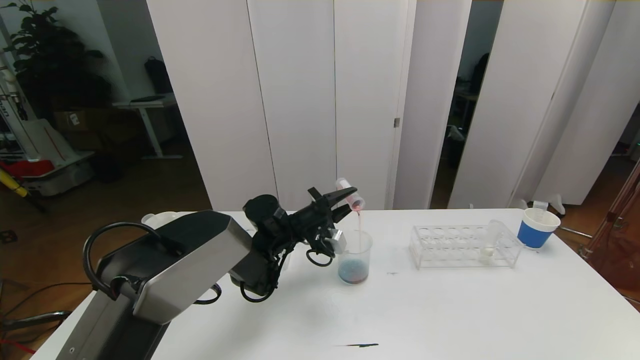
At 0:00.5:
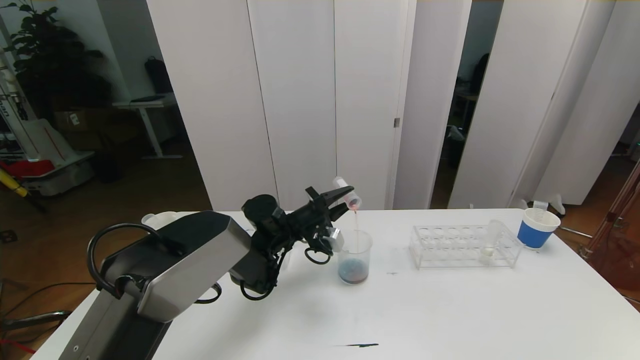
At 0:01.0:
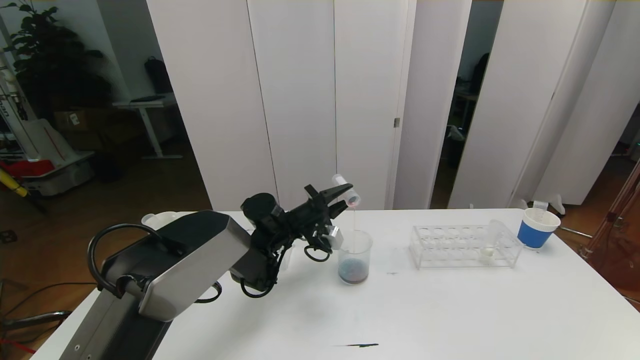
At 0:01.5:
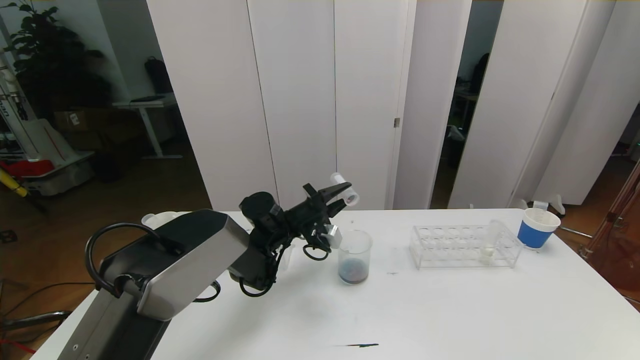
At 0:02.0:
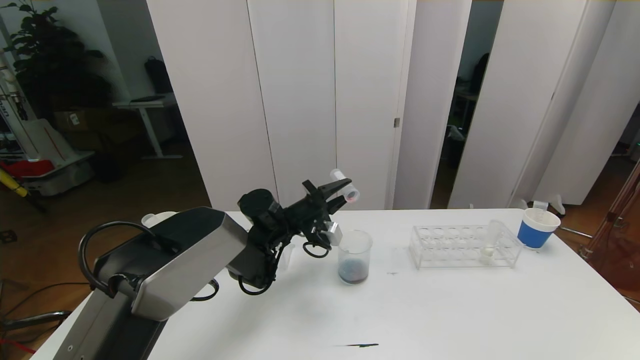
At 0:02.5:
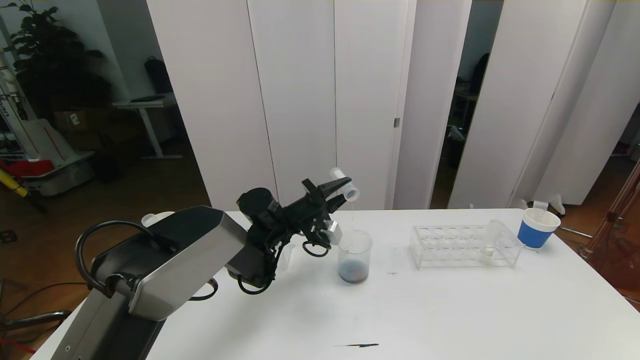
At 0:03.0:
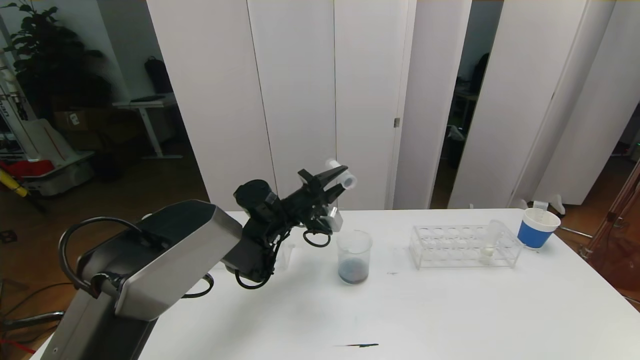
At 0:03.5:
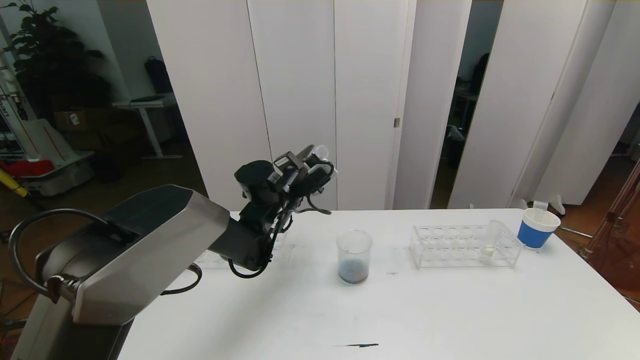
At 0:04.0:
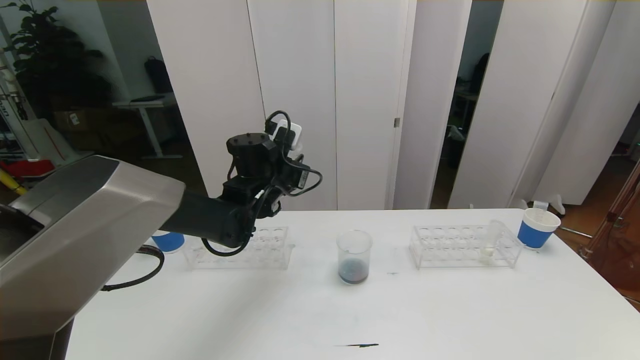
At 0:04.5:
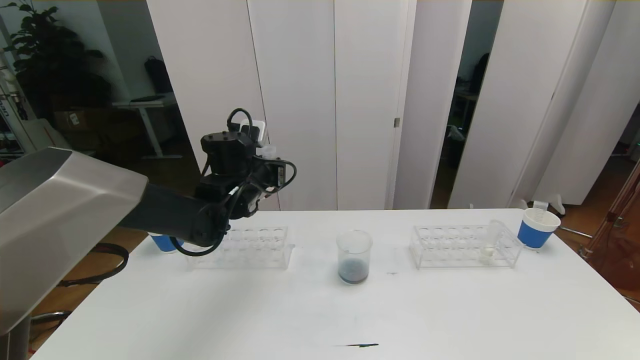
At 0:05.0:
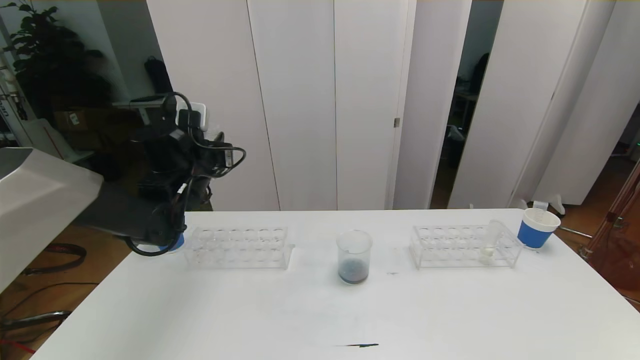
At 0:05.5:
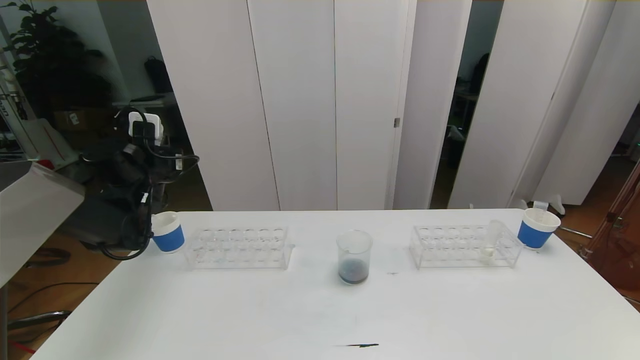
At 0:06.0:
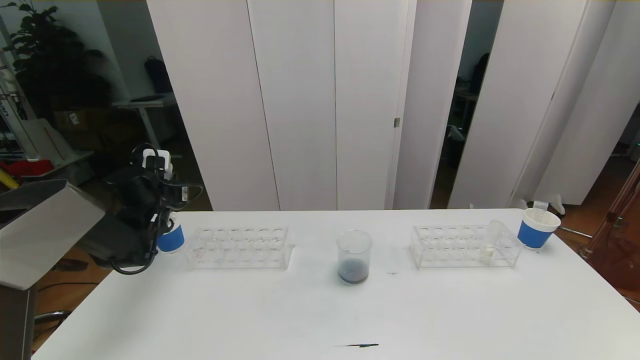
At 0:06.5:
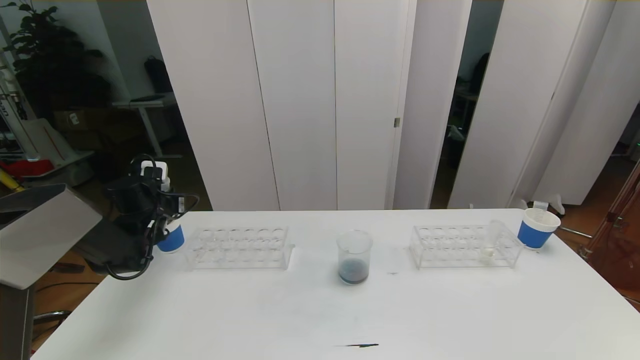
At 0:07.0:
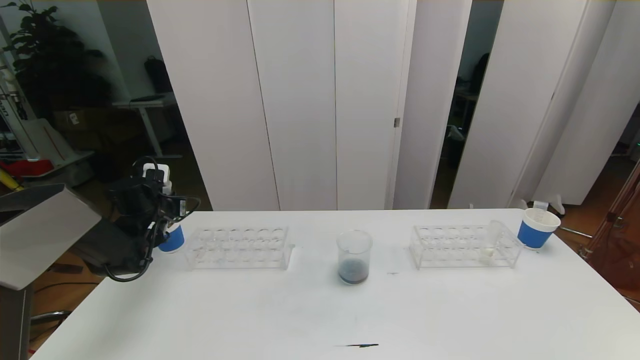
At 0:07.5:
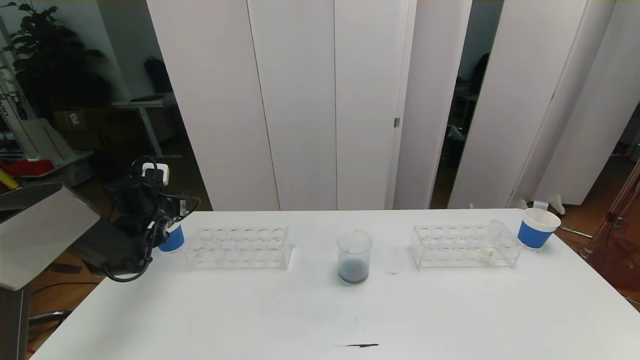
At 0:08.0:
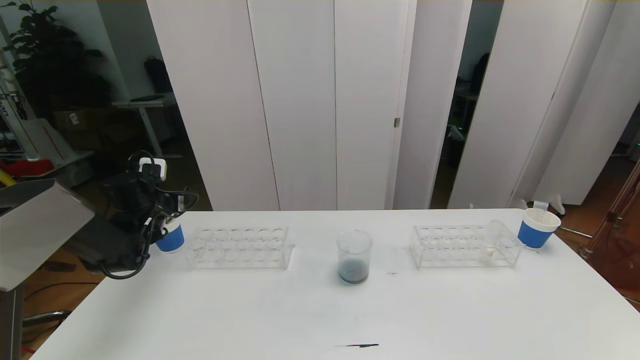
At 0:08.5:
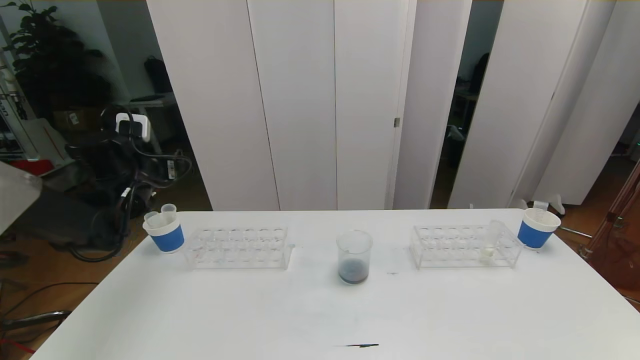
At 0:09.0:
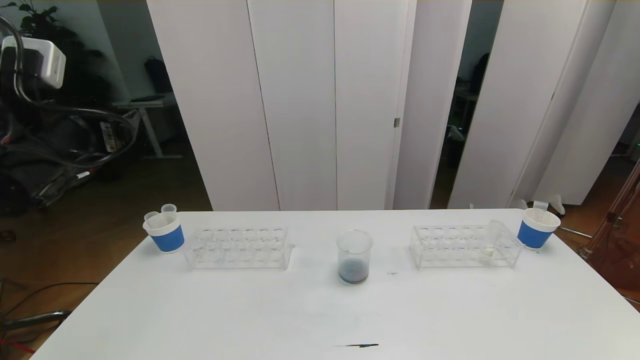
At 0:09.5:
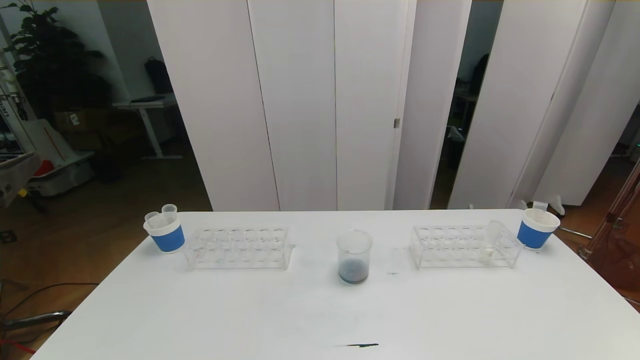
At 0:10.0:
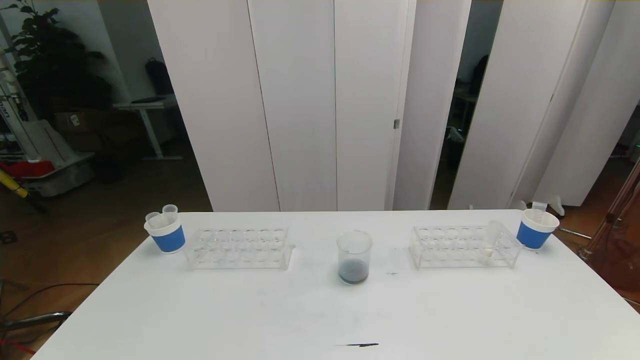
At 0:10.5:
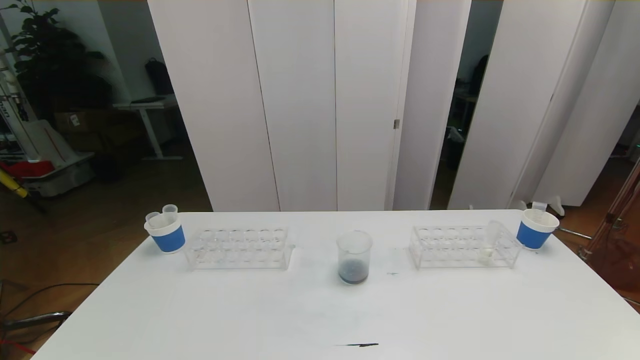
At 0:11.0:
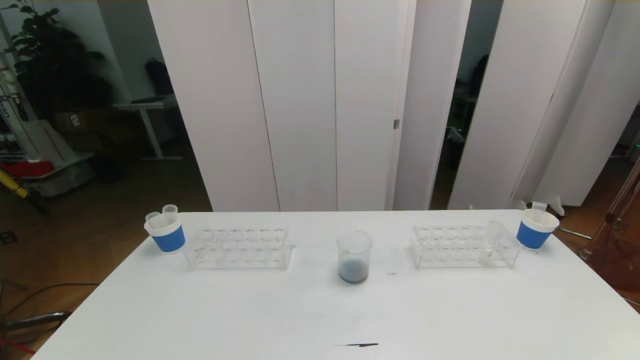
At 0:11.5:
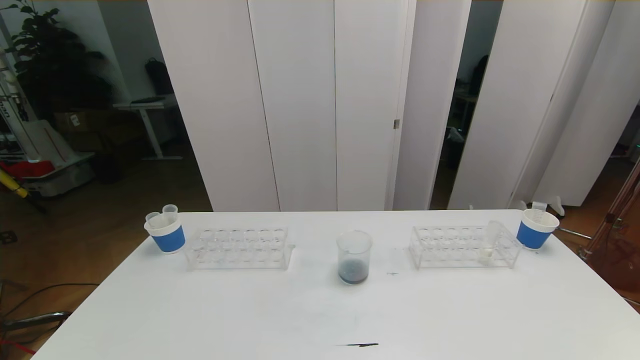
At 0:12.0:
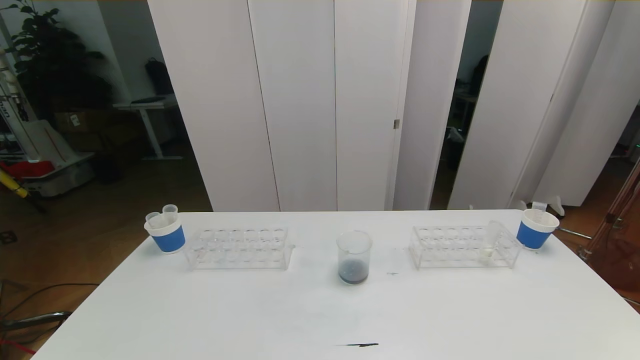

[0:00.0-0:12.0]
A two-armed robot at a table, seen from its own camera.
Task of the whole recording: pick up the test tube with red pigment the test tube with blue pigment and the test tube with white pigment by grippers and pour them into the beaker.
Step, 0:00.0 to 0:10.5: Pour the orange reagent into the graduated cylinder and place the test tube into the paper cup.
0:00.0 to 0:02.0: There are only small adjustments of the grippers.
0:02.0 to 0:04.0: The left gripper is displaced upward by approximately 10 cm.
0:04.0 to 0:06.0: The left gripper goes some 25 cm to the left.
0:06.0 to 0:08.0: The left gripper opens its fingers.
0:08.0 to 0:10.0: The left gripper heads backward, covering approximately 50 cm.

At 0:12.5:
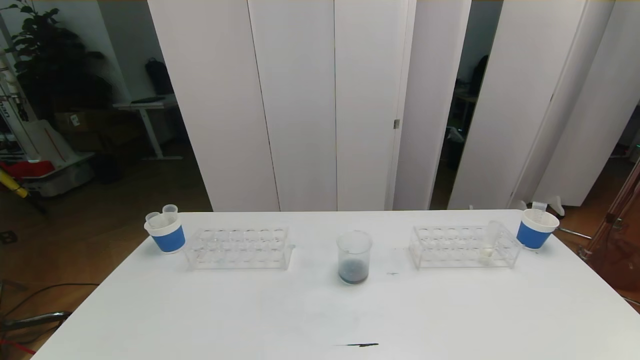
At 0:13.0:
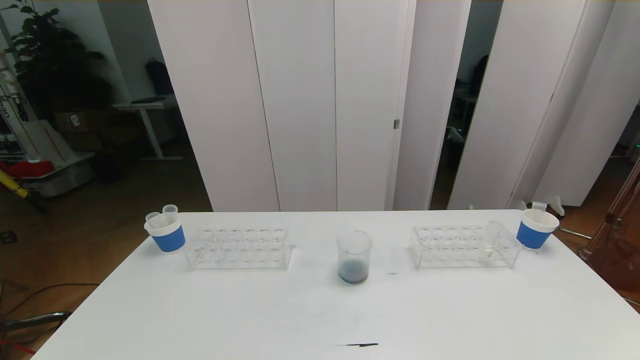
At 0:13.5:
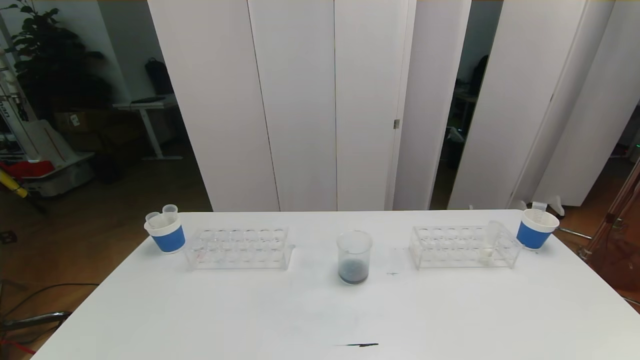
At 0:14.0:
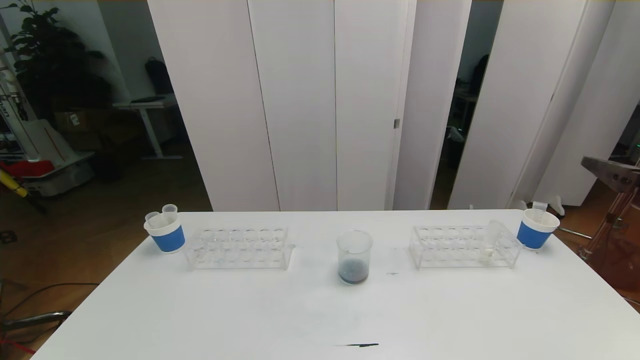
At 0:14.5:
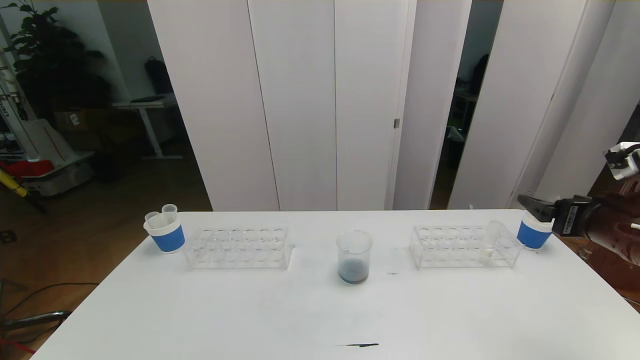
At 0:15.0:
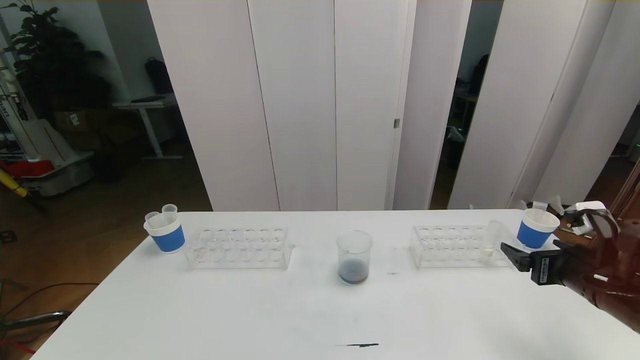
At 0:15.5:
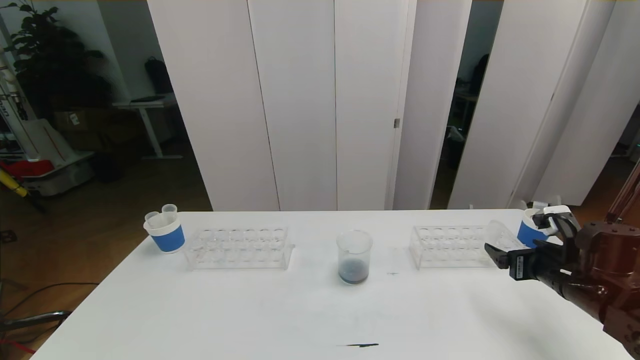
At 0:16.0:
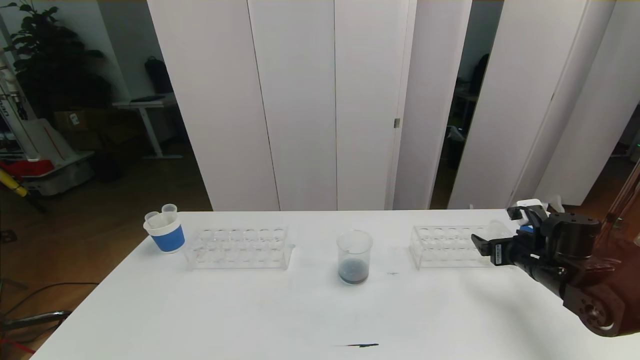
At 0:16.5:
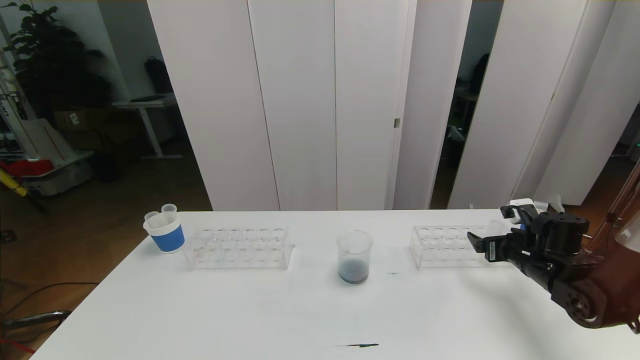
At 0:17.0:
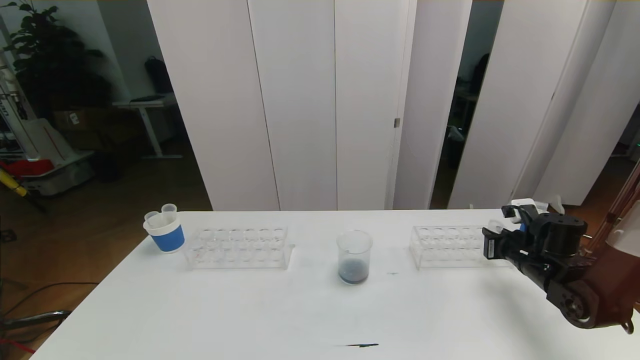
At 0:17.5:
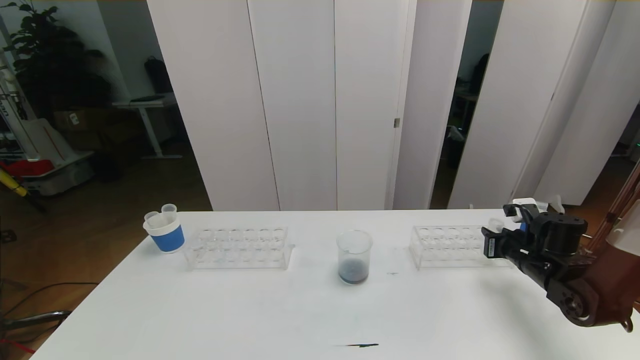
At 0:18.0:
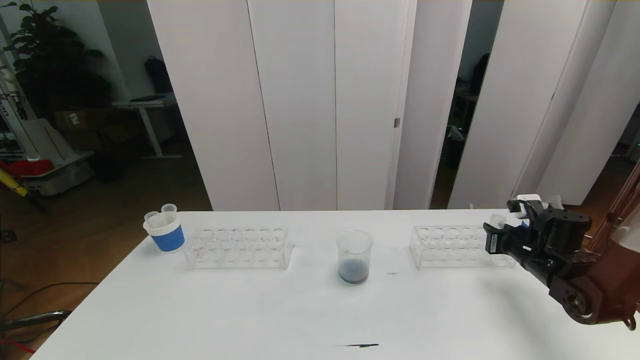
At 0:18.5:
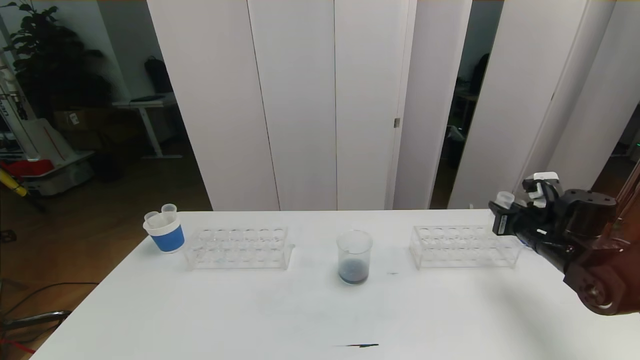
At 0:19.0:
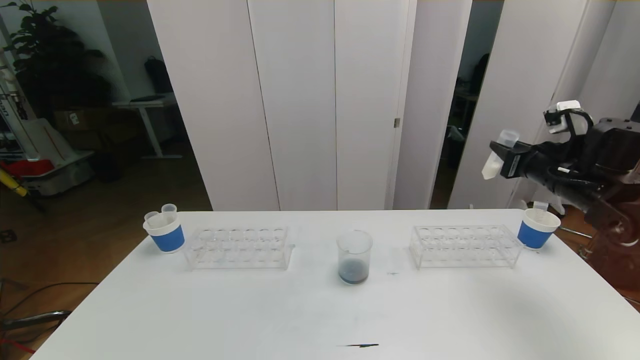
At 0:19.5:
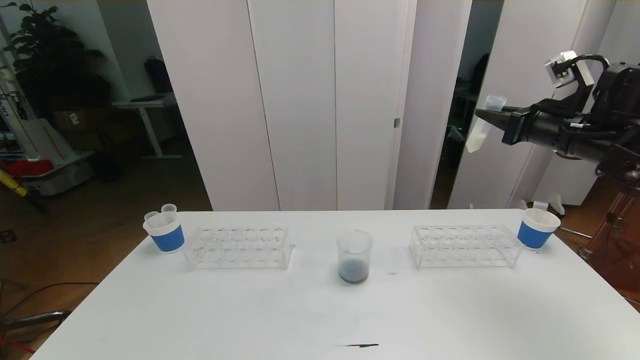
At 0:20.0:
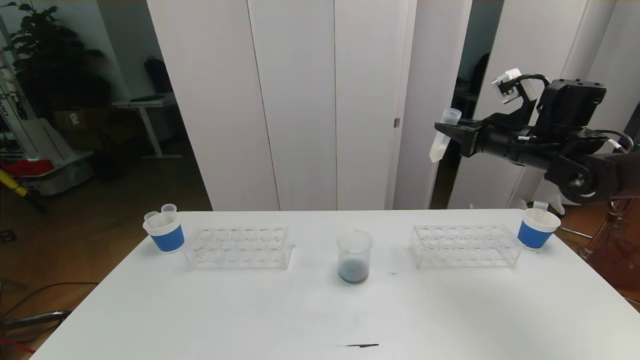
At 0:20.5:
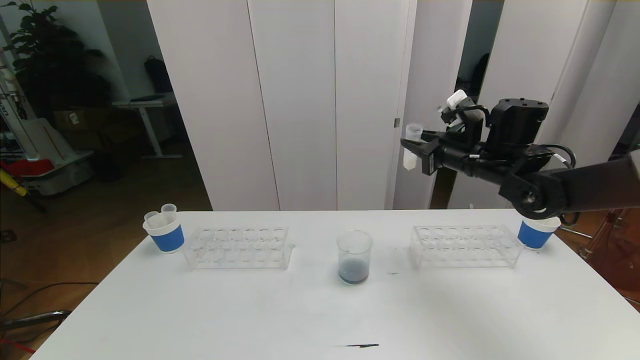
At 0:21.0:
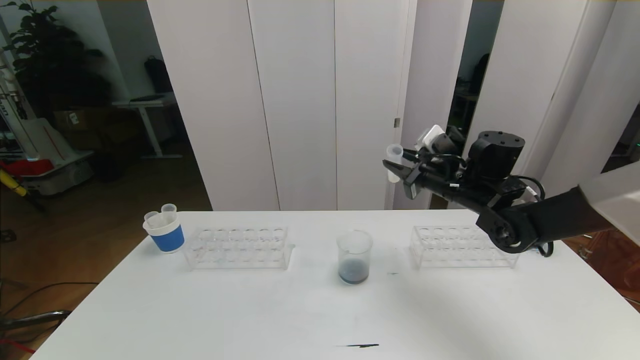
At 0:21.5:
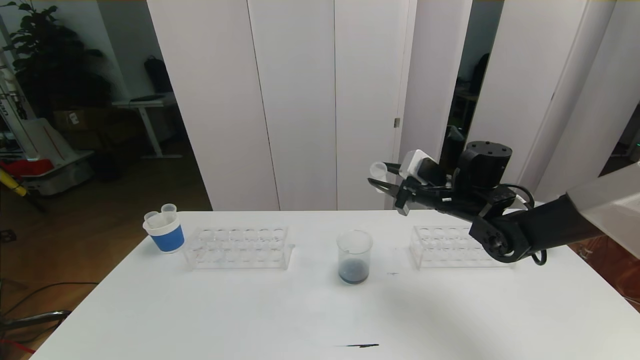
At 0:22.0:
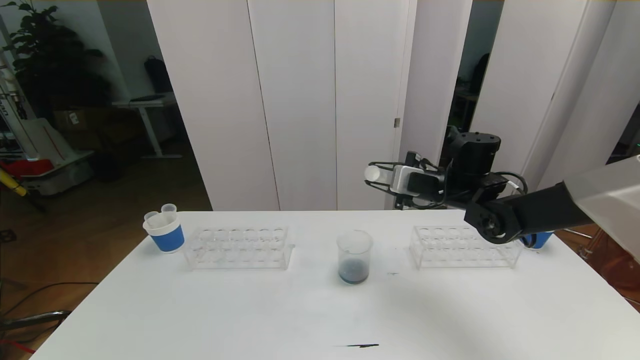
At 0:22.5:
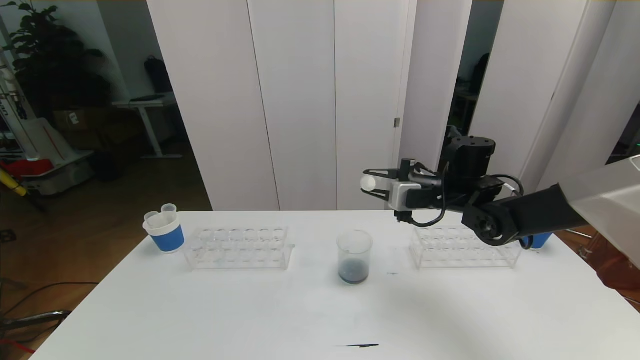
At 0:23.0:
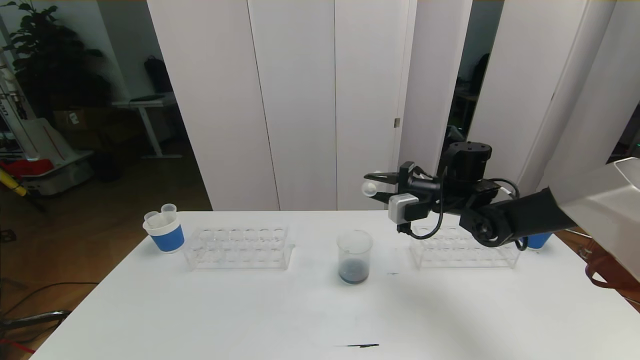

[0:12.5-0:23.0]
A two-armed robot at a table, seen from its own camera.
Task of the whole recording: pick up the test tube with red pigment the test tube with blue pigment and the test tube with white pigment by grippers and pour them into the beaker.
0:12.5 to 0:14.5: The right gripper is displaced forward by approximately 30 cm.
0:14.5 to 0:16.5: The right gripper shifts roughly 15 cm downward and forward.
0:16.5 to 0:19.0: The right gripper heads upward, covering some 15 cm, and closes its fingers.
0:19.0 to 0:21.0: The right gripper travels to the left by about 15 cm.
